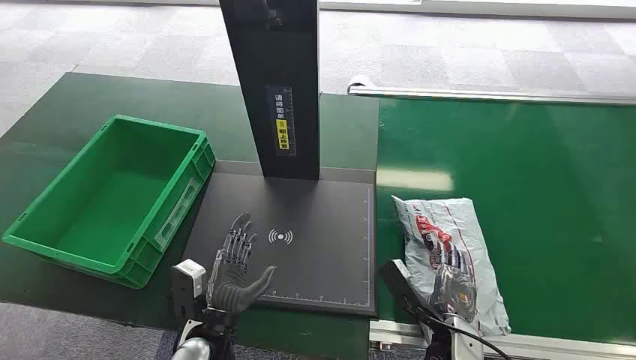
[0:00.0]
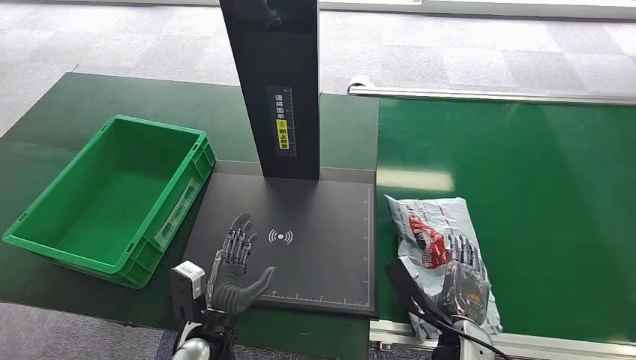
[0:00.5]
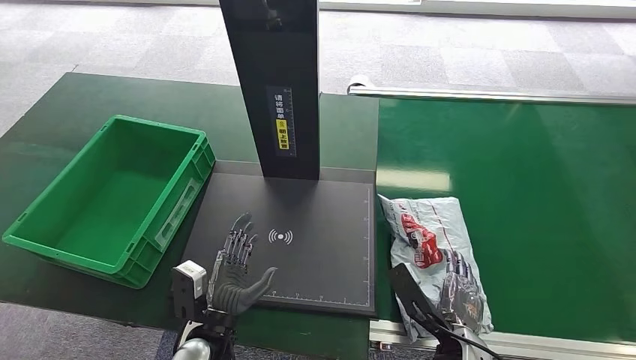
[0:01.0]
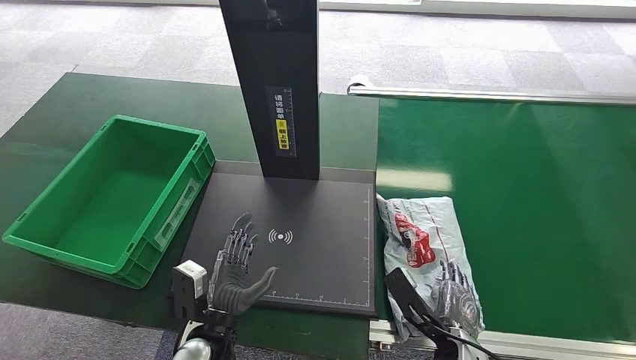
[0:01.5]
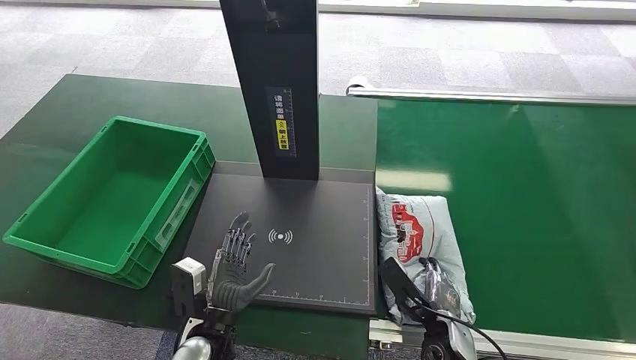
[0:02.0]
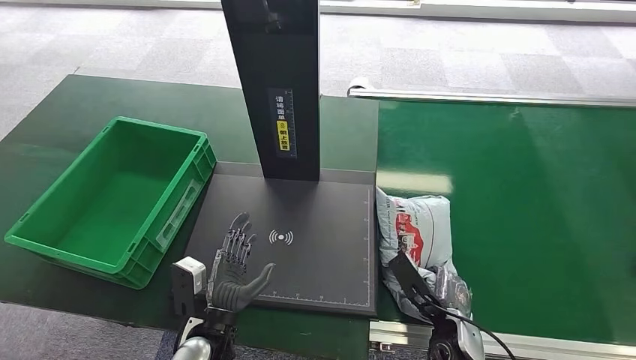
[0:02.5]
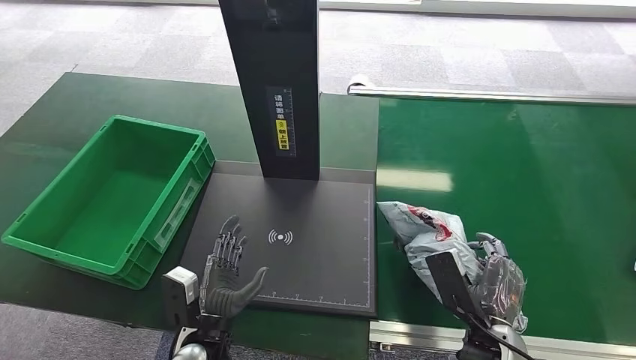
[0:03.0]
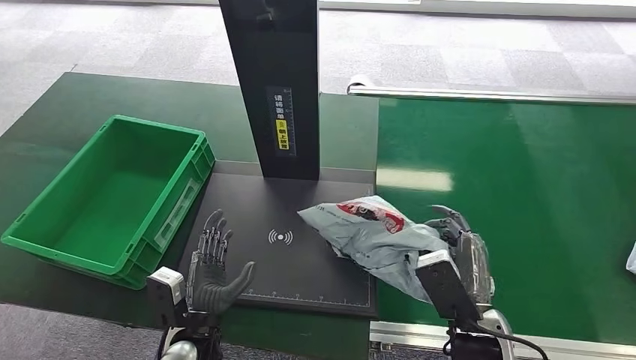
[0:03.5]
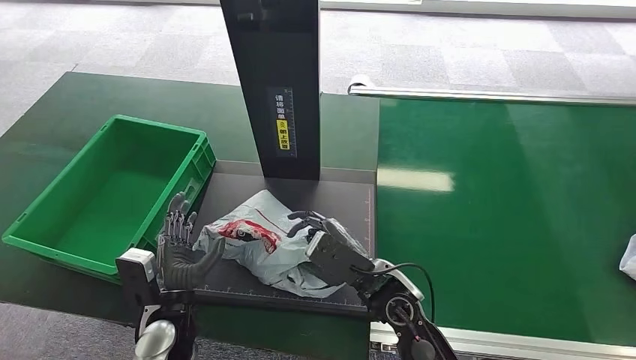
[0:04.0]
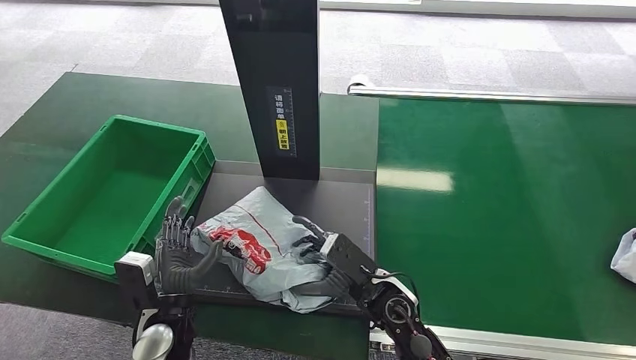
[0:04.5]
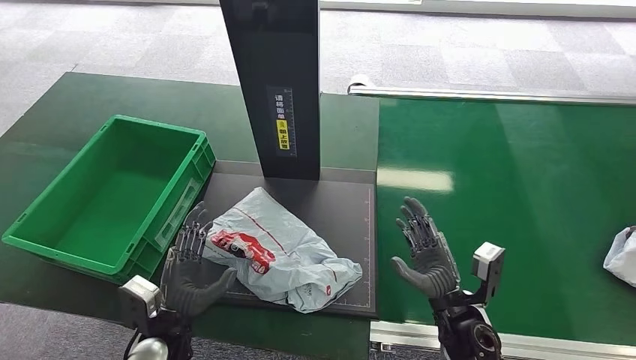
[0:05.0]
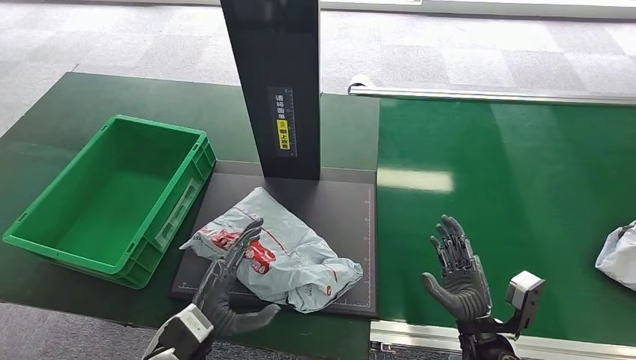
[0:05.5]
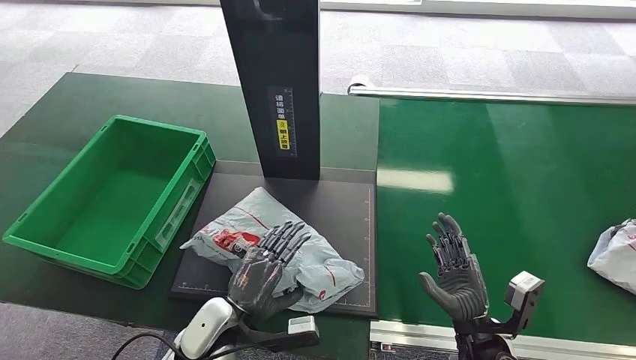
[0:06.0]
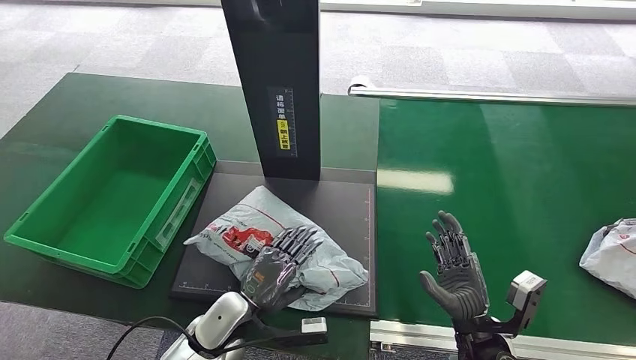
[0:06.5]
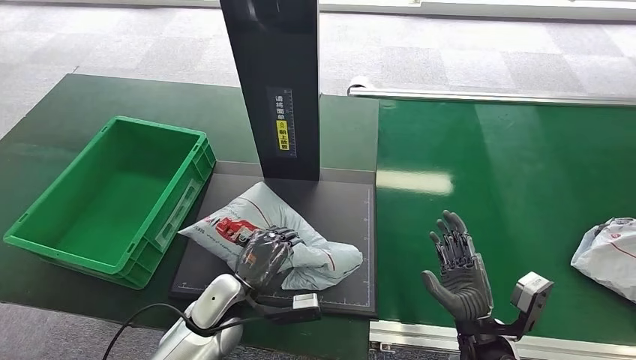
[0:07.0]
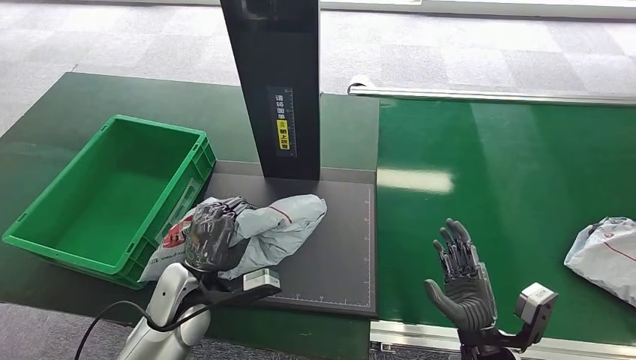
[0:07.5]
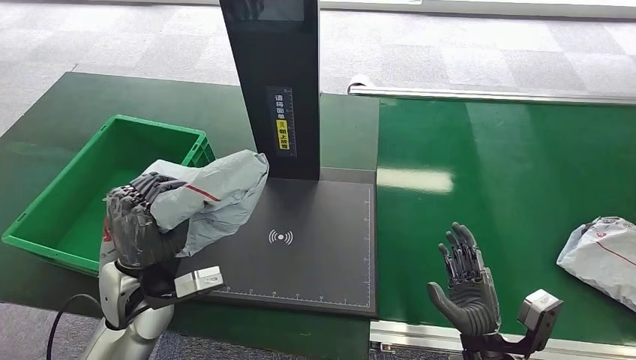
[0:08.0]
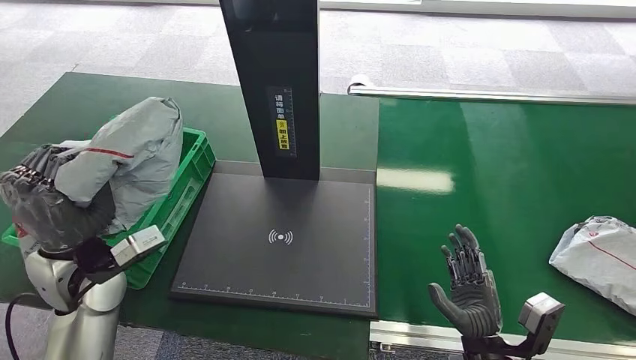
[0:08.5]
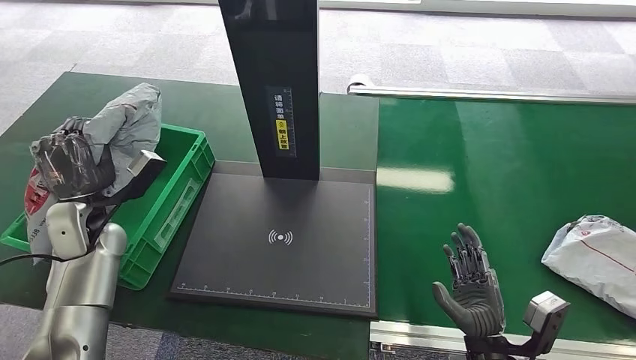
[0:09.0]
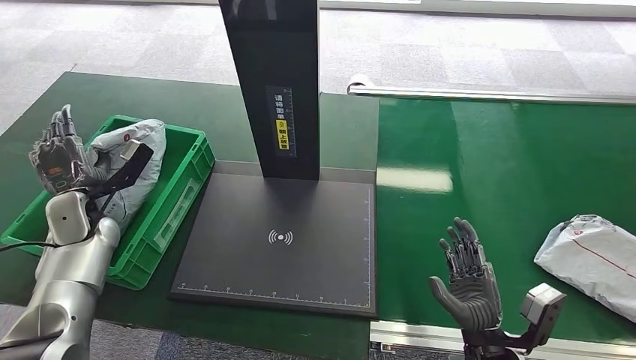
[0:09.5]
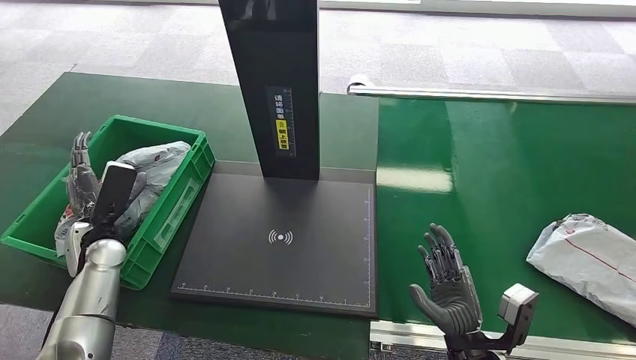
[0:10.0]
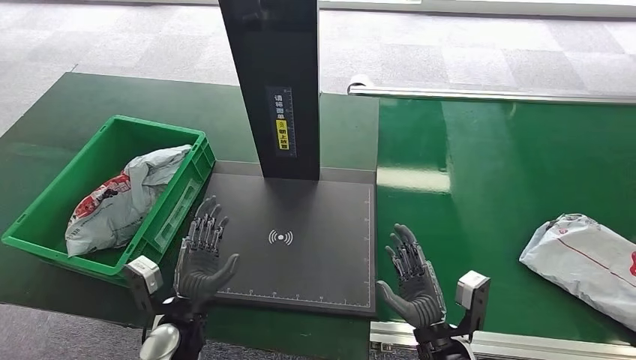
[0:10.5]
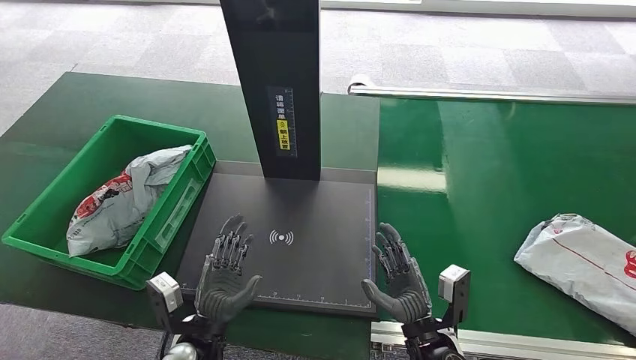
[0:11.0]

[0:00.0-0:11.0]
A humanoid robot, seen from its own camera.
Step, 0:00.0 to 0:03.0: Pick up the package from the conveyor belt.
Step, 0:03.5 to 0:04.5: Place the package onto the inbound machine.
Step, 0:05.0 to 0:08.0: Pick up the package from the inbound machine.
Step, 0:08.5 to 0:11.0: Place the package into the parcel locker.
0:02.0 to 0:03.5: The right hand travels upward by about 15 cm.
0:03.5 to 0:05.5: The right hand heads downward and to the right, covering about 10 cm.
0:05.5 to 0:07.5: The left hand heads forward, covering some 10 cm.
0:09.0 to 0:11.0: The left hand shifts some 30 cm to the right, backward and downward, while the right hand shifts roughly 10 cm to the left.

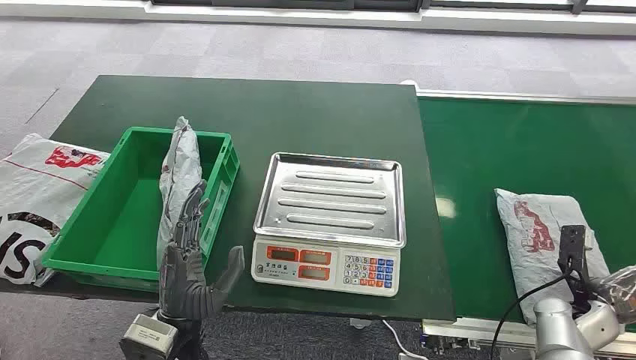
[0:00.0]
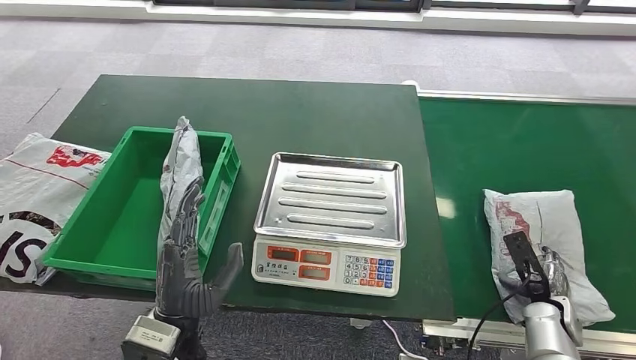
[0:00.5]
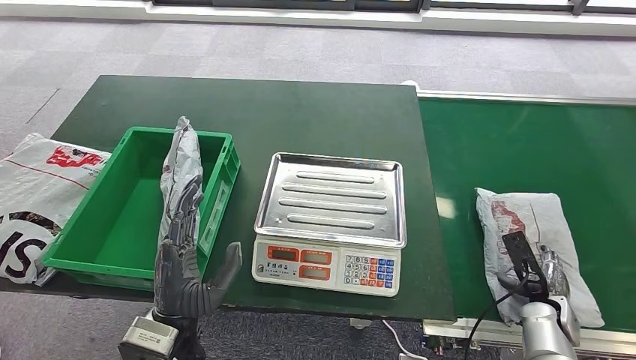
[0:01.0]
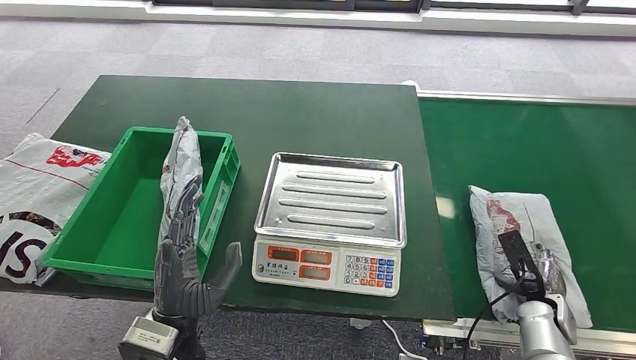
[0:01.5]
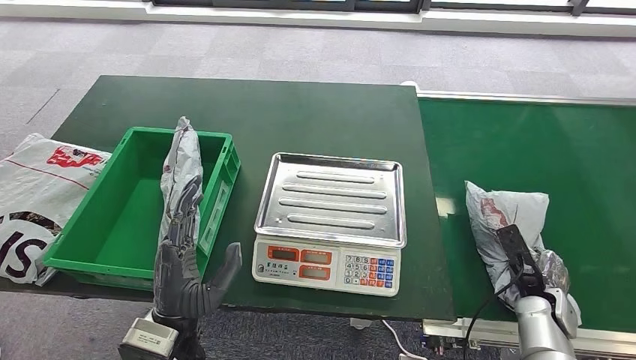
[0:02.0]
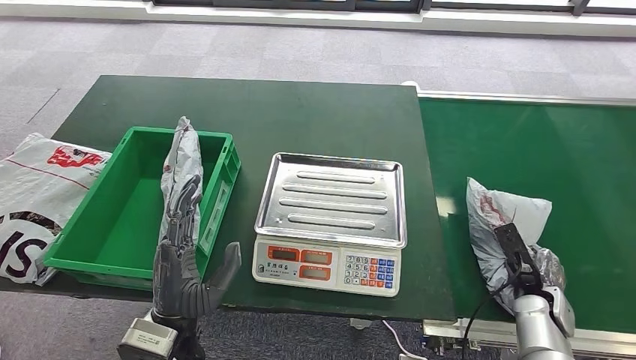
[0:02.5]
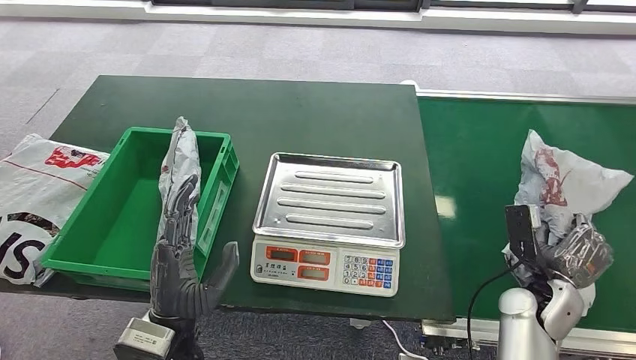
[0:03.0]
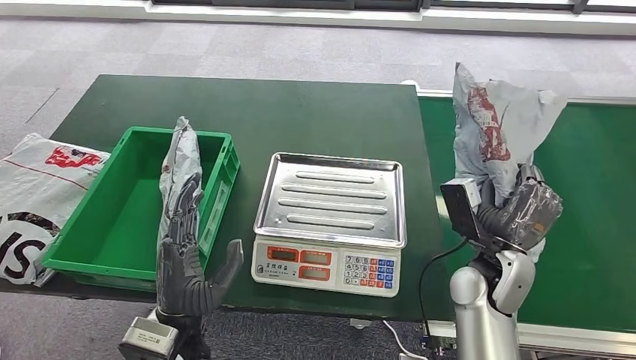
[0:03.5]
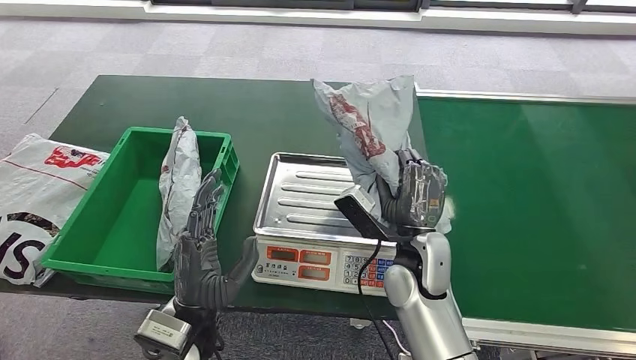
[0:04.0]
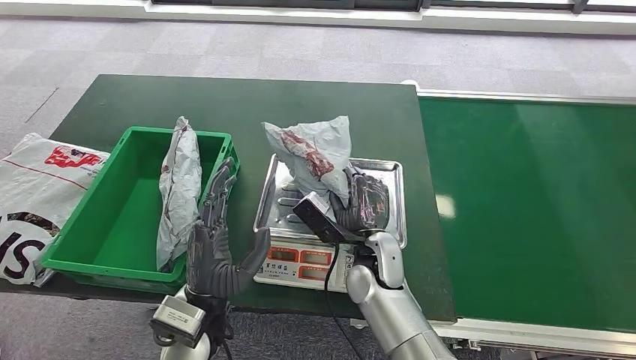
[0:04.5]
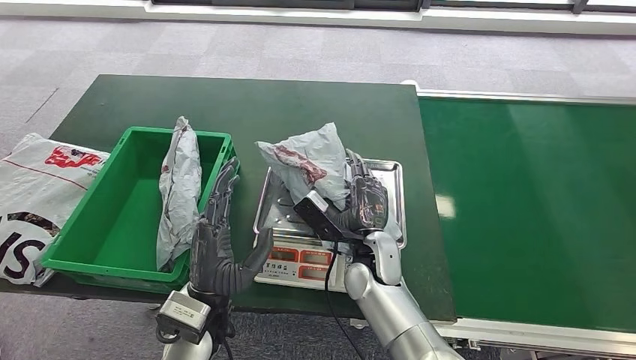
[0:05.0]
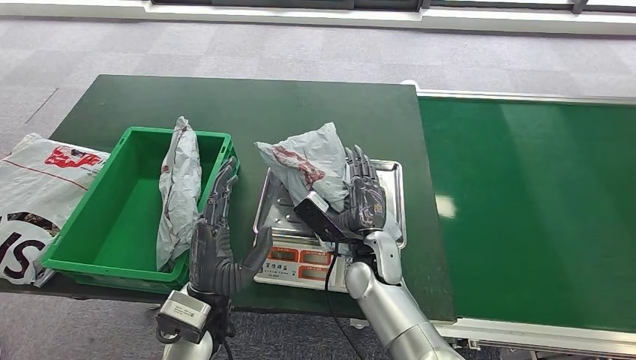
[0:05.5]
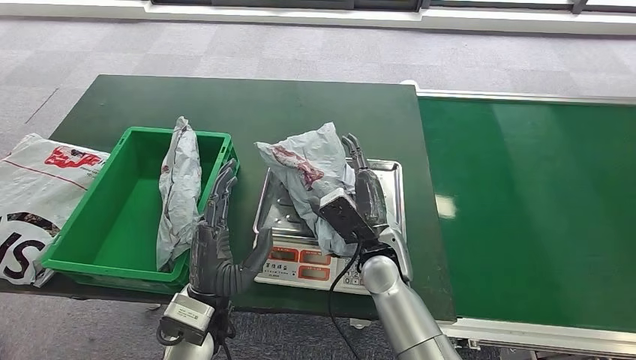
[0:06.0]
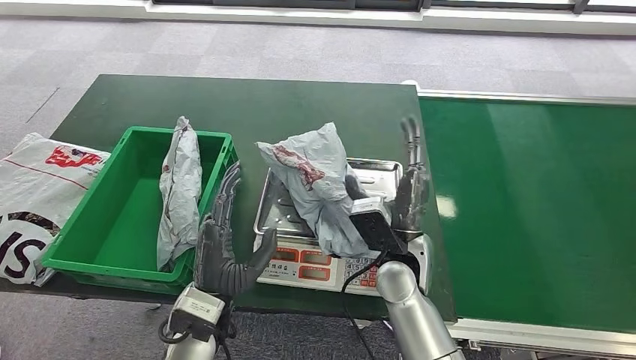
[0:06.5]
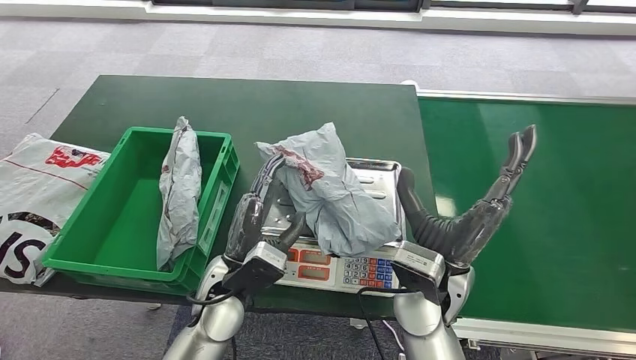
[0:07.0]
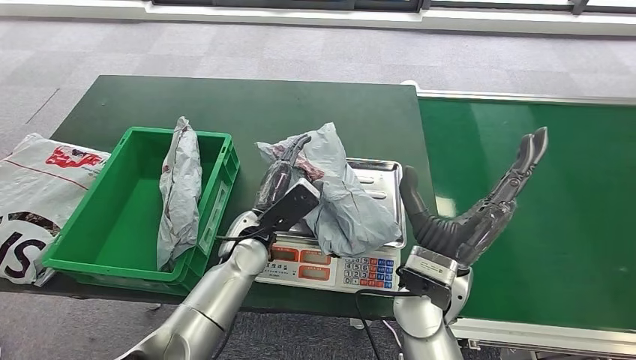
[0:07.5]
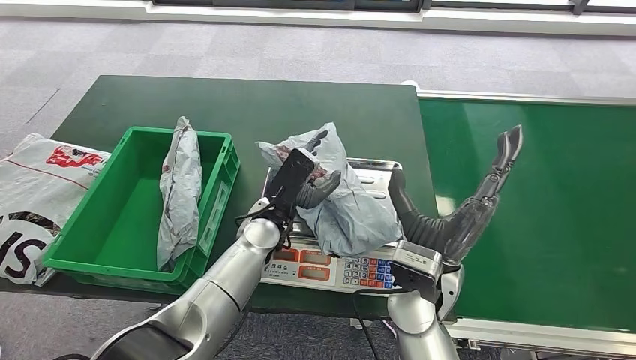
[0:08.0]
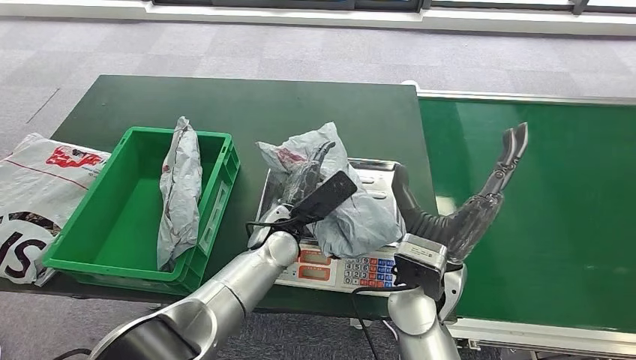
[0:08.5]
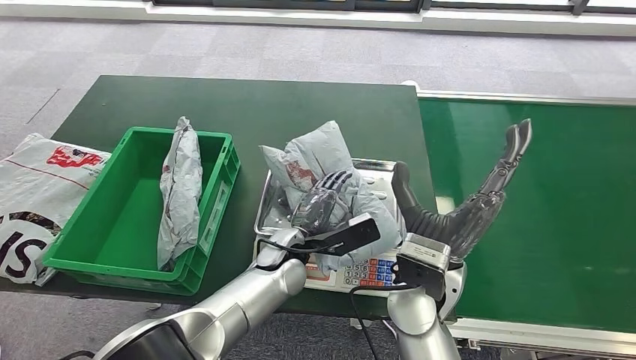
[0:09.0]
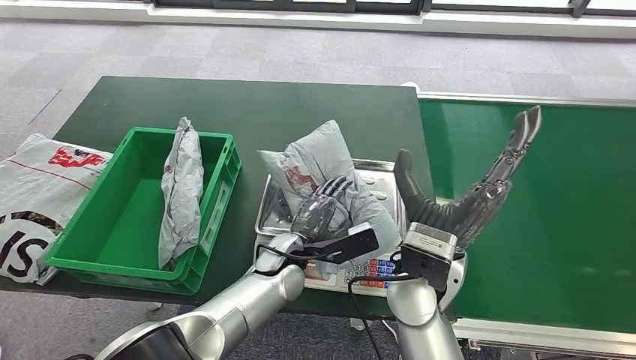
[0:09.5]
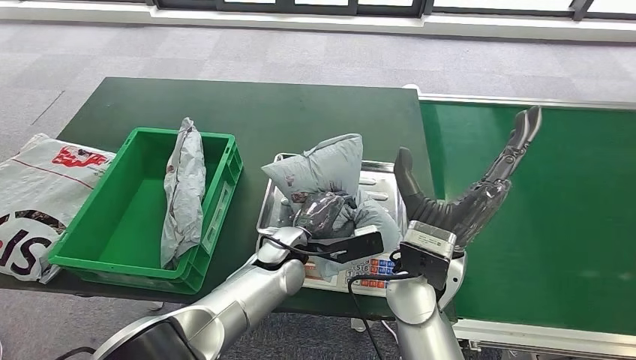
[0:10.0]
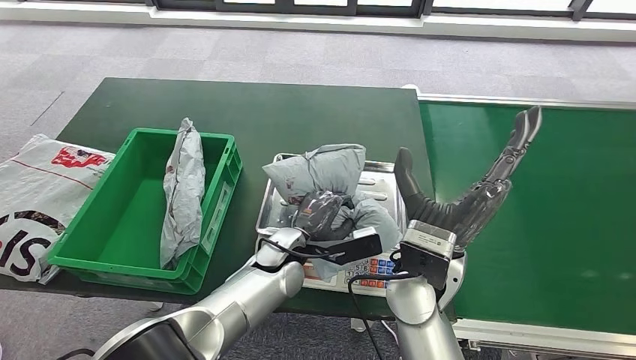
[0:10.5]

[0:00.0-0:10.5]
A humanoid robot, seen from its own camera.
Step, 0:00.0 to 0:03.5: Pick up the package from the conveyor belt.
Step, 0:04.0 to 0:06.0: Place the package onto the inbound machine.
0:06.5 to 0:08.5: The left hand goes approximately 15 cm forward and to the right. Meanwhile the right hand goes some 5 cm upward.
